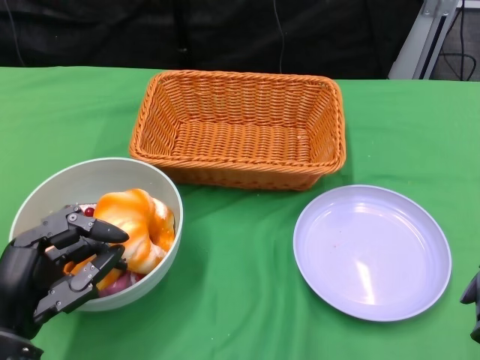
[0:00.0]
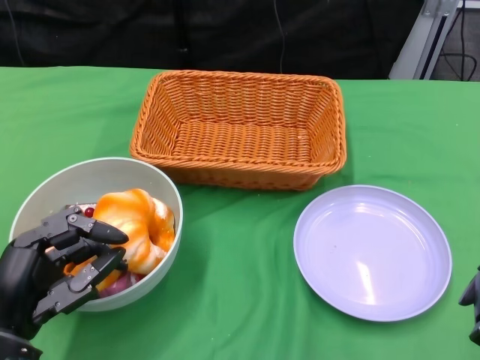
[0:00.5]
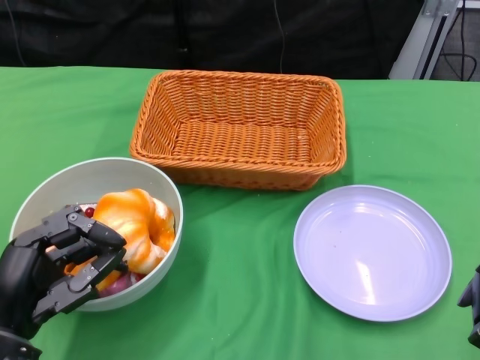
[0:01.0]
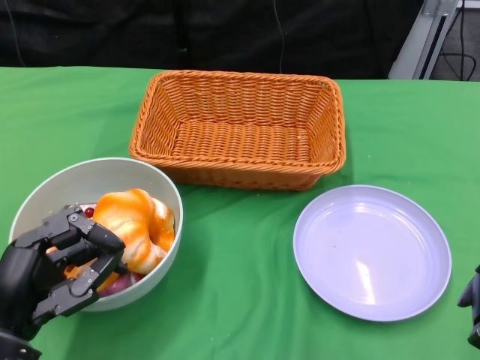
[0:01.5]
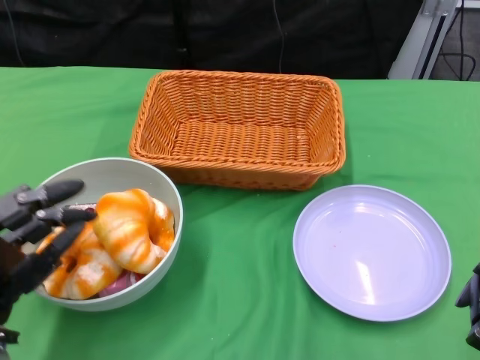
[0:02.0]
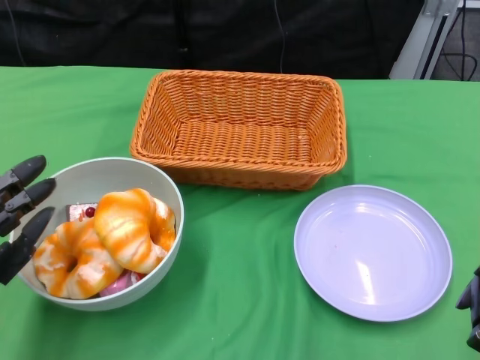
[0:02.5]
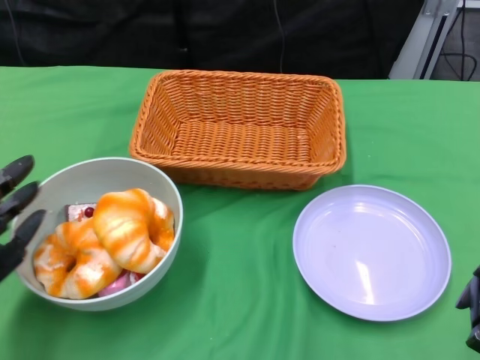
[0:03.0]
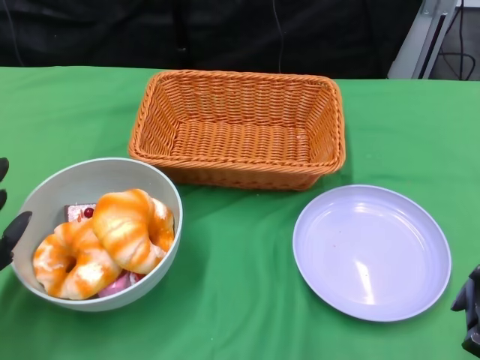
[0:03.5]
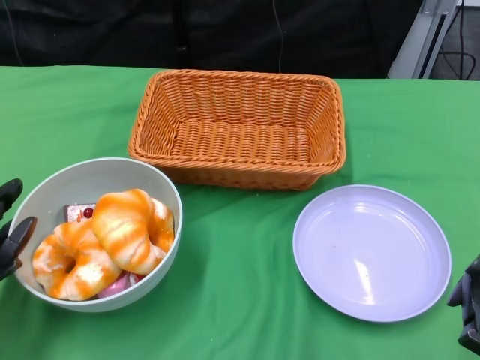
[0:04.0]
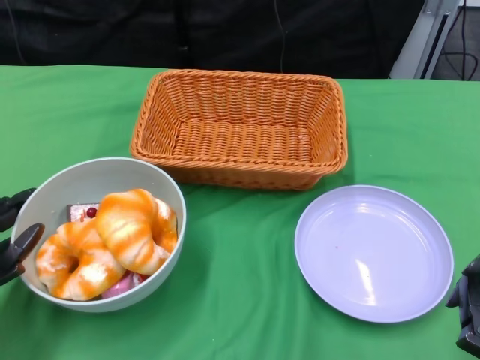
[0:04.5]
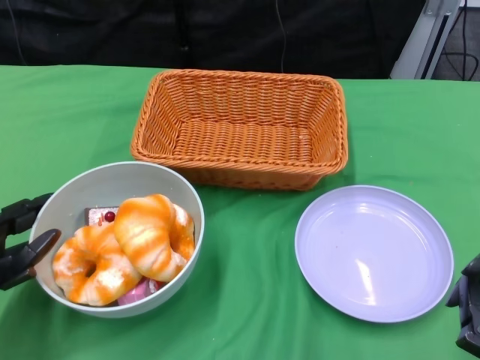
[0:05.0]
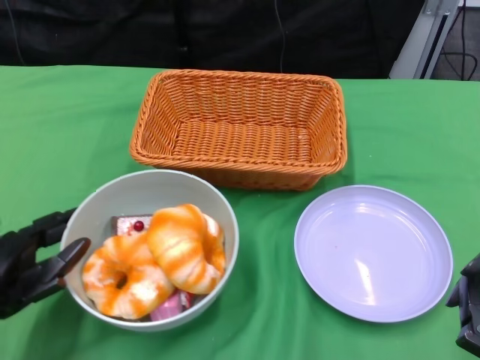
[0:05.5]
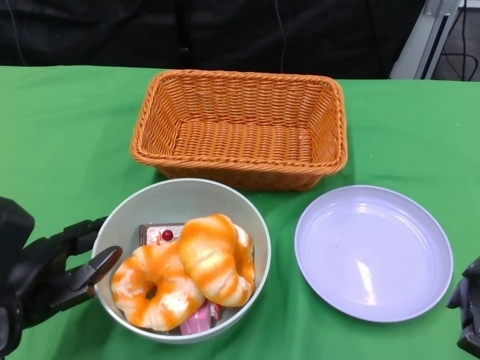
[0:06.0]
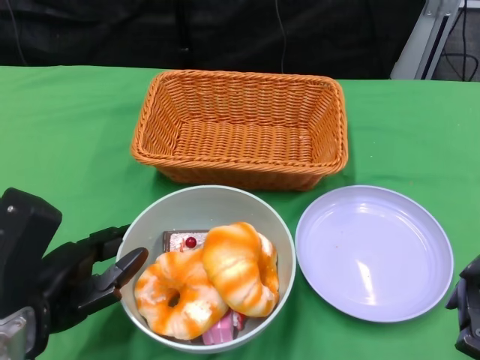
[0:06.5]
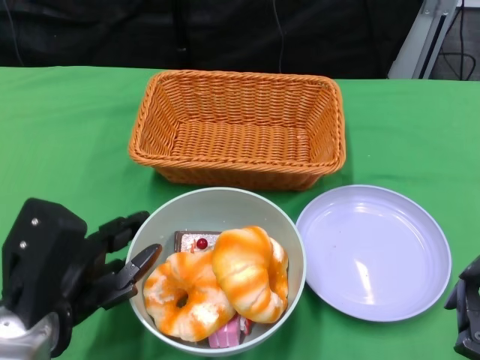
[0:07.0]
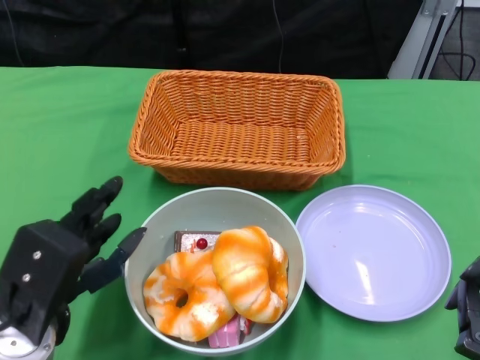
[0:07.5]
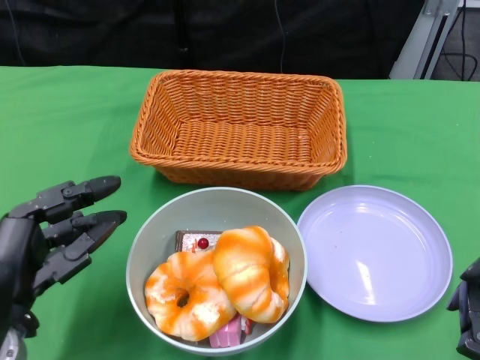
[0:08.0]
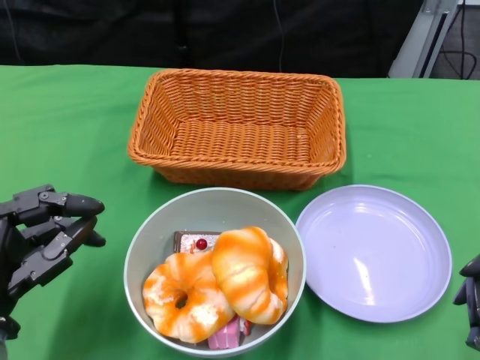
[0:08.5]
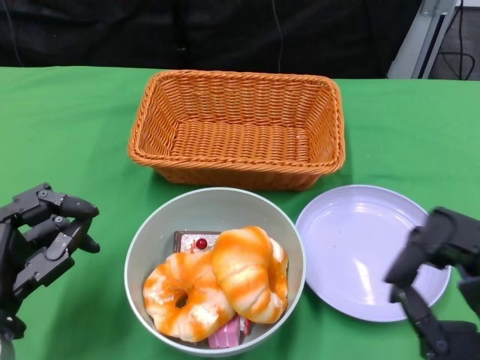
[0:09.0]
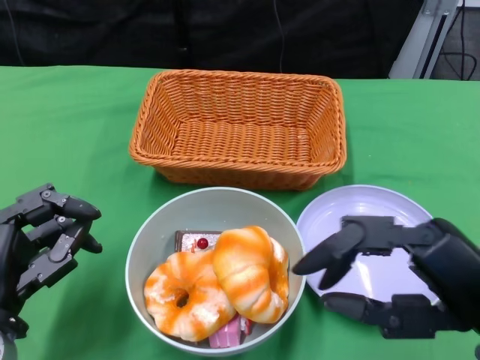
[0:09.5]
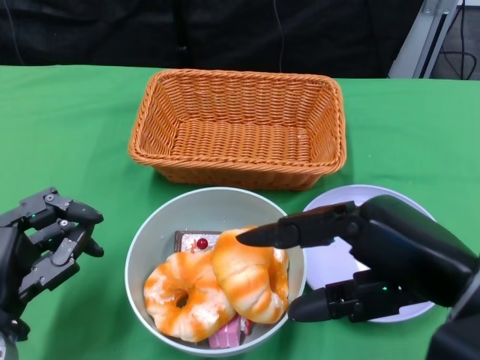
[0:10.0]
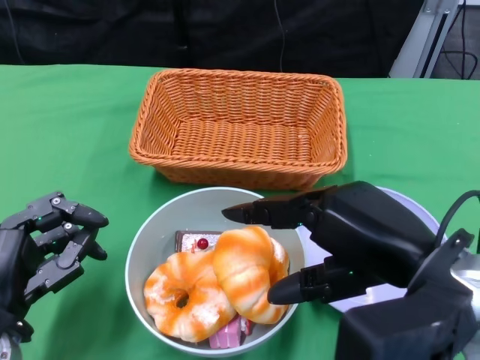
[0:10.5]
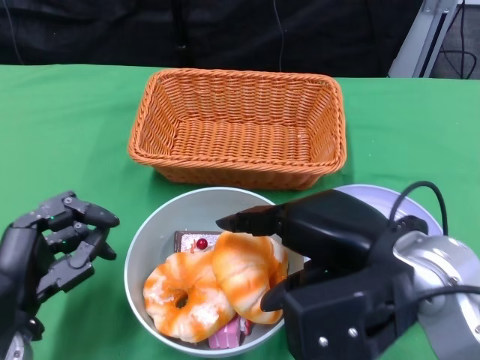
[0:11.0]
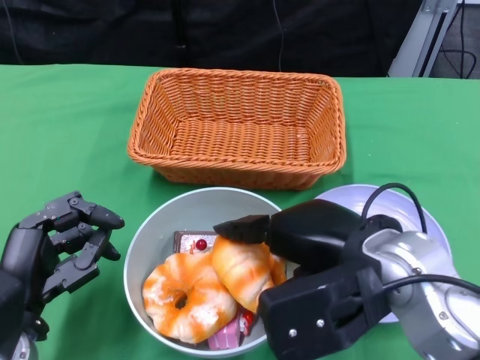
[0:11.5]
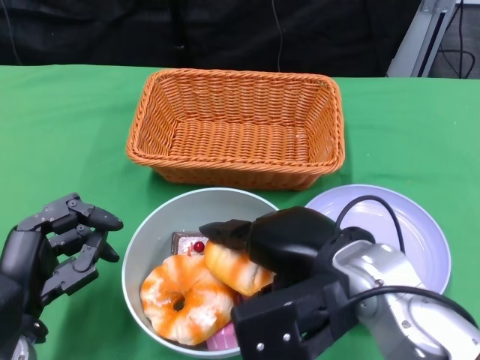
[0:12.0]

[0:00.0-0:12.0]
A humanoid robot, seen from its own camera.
Step, 0:00.0 to 0:07.5: Push the bowl to the center of the table using the left gripper.
0:02.0 to 0:04.0: The left hand shifts some 5 cm to the left.
0:04.0 to 0:06.0: The left hand moves to the right, some 5 cm.
0:08.0 to 0:10.0: The right hand is displaced upward, forward and to the left by approximately 15 cm.
0:10.0 to 0:12.0: The right hand moves to the left and forward, approximately 10 cm.

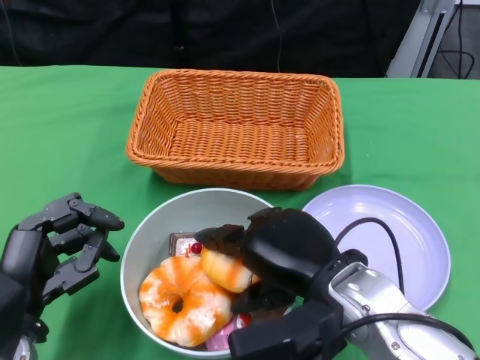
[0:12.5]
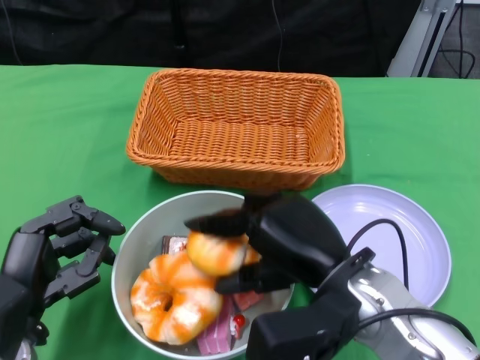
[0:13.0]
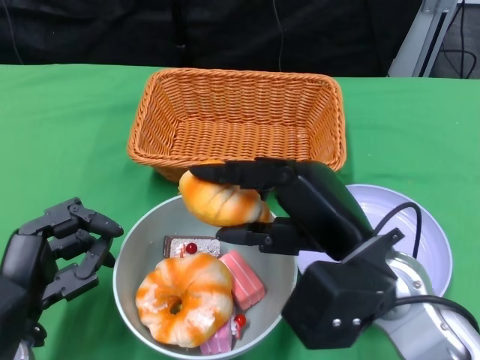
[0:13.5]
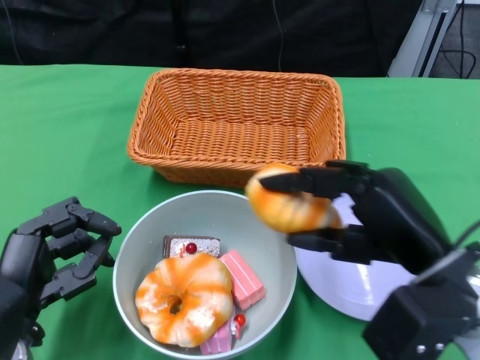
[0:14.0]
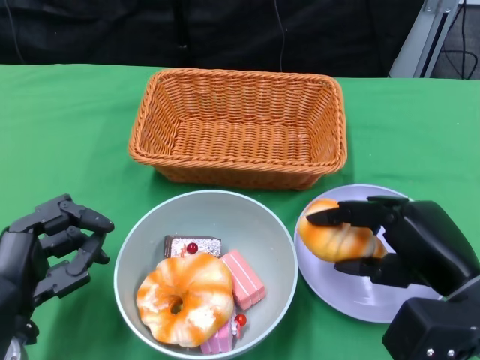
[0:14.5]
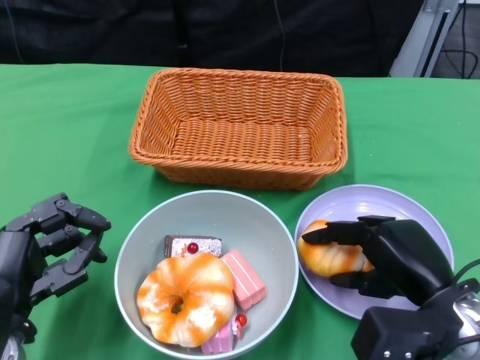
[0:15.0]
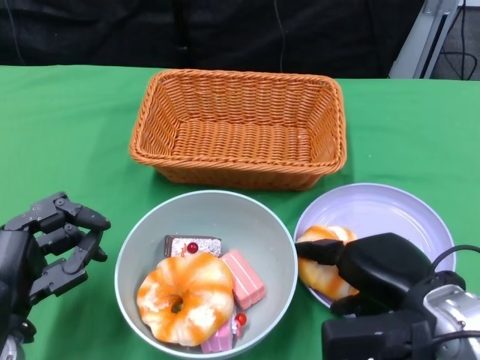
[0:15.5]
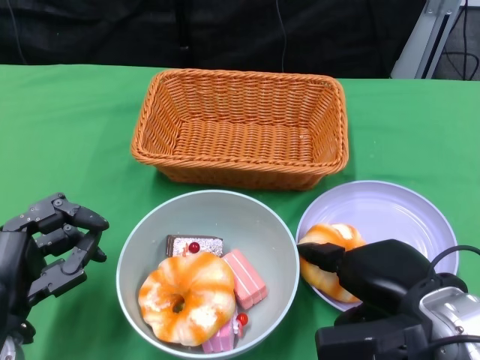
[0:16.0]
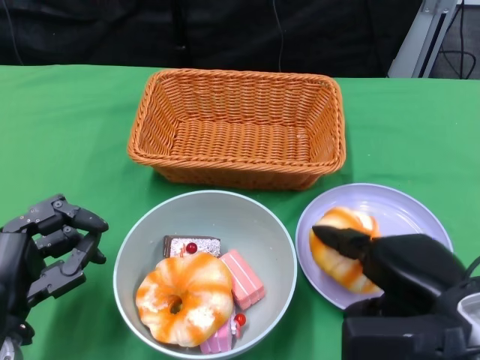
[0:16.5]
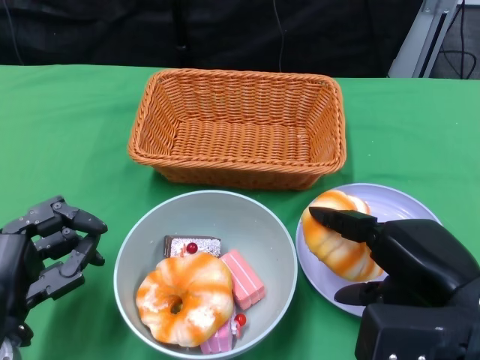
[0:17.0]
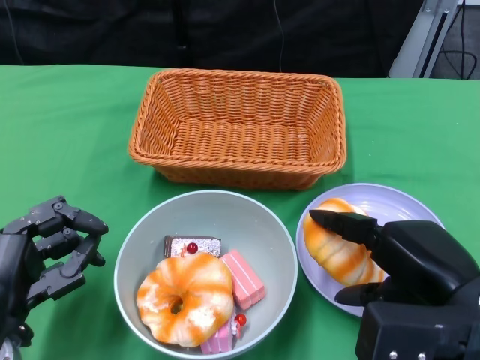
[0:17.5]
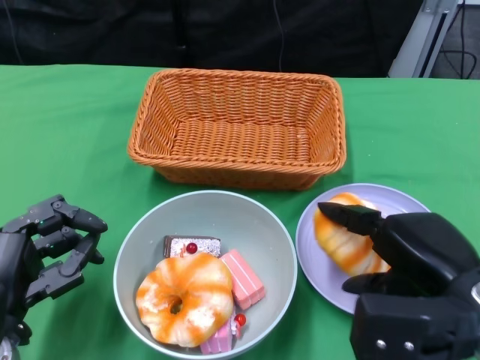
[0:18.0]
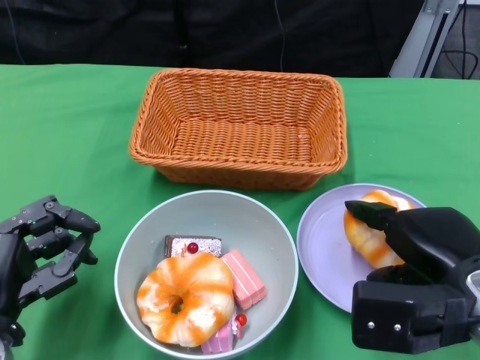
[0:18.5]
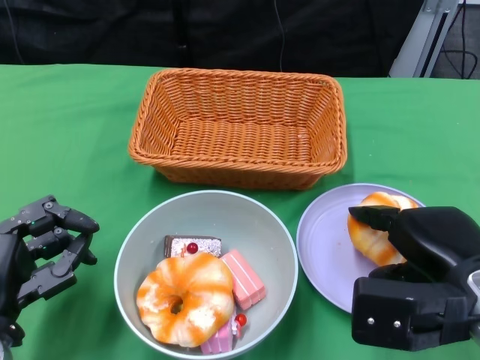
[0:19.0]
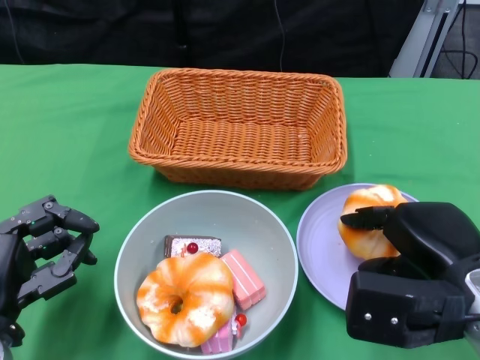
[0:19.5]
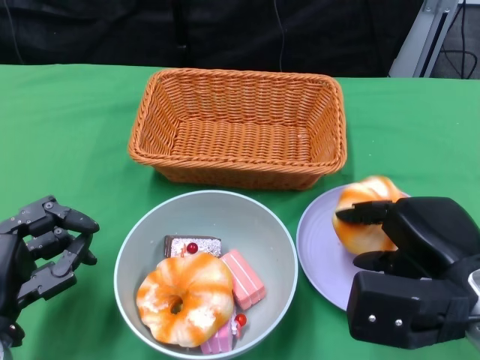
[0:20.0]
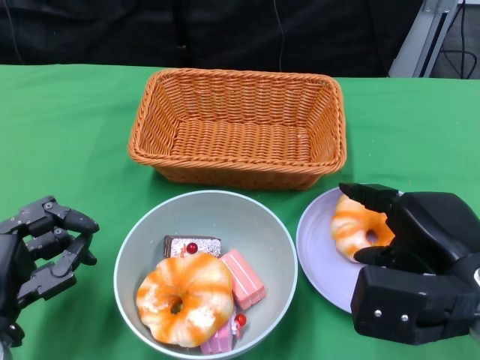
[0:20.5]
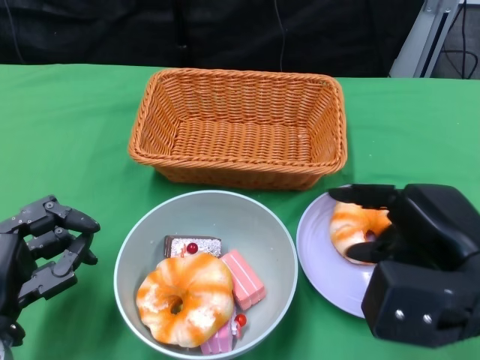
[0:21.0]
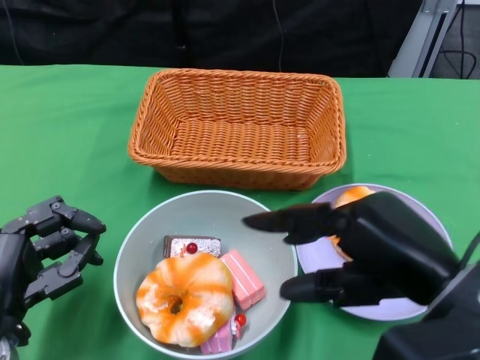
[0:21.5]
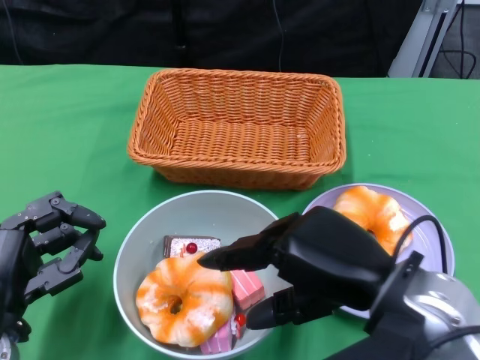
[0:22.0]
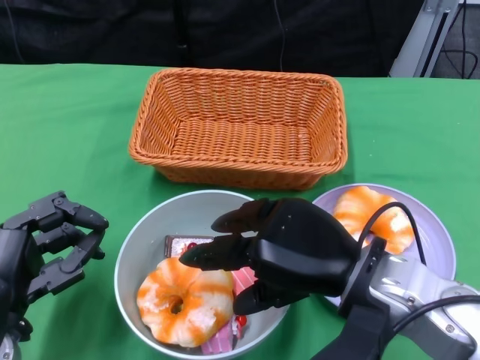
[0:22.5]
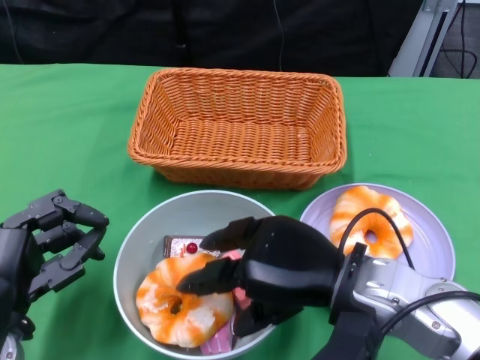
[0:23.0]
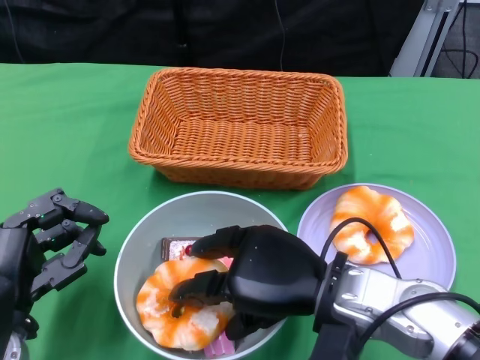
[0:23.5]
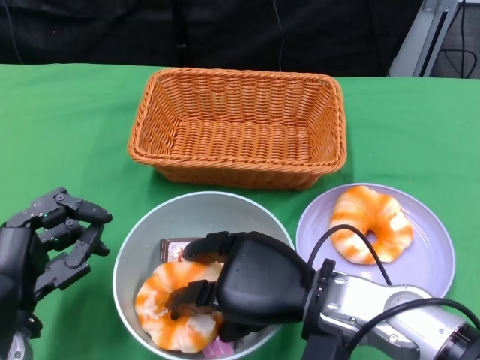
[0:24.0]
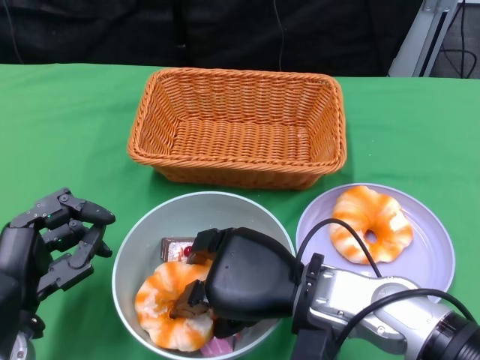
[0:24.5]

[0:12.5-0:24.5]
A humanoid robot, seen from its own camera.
Step, 0:12.5 to 0:21.0: Pick up the bread with the right gripper and place it on the plate.
0:12.5 to 0:14.5: The right hand heads to the right, covering roughly 10 cm.
0:16.5 to 0:20.5: There are only small adjustments of the hands.
0:20.5 to 0:22.5: The right hand travels to the left by some 10 cm.
0:22.5 to 0:24.5: The right hand shifts by roughly 5 cm.

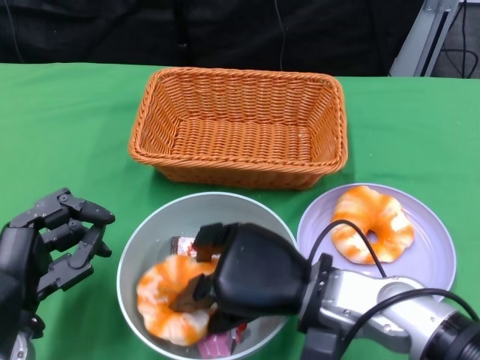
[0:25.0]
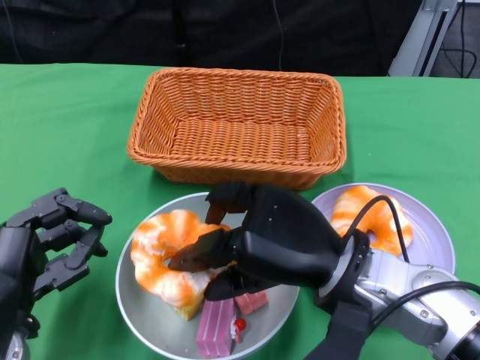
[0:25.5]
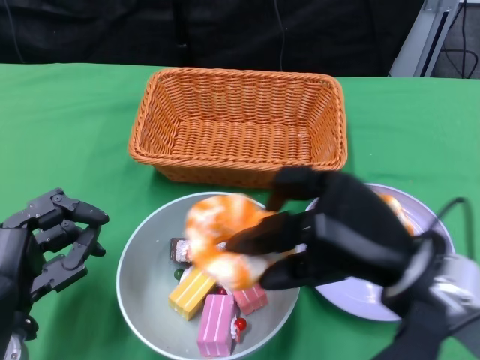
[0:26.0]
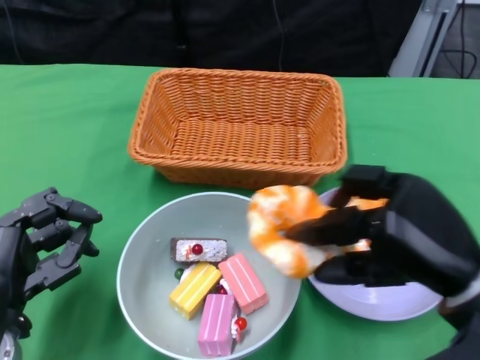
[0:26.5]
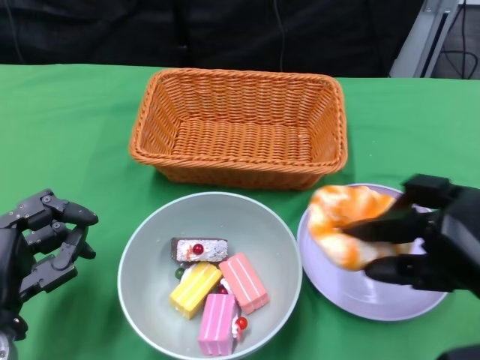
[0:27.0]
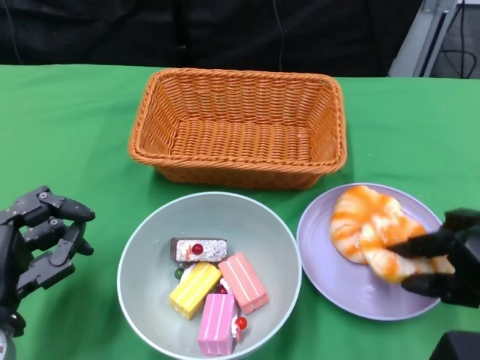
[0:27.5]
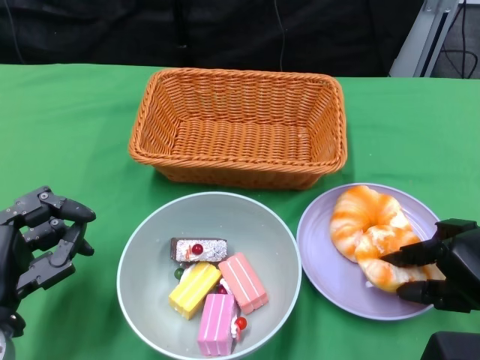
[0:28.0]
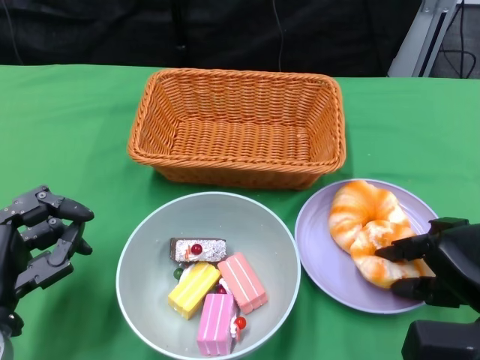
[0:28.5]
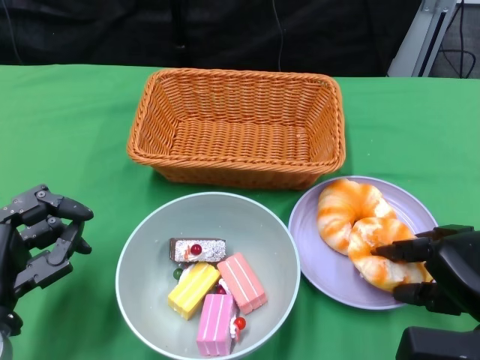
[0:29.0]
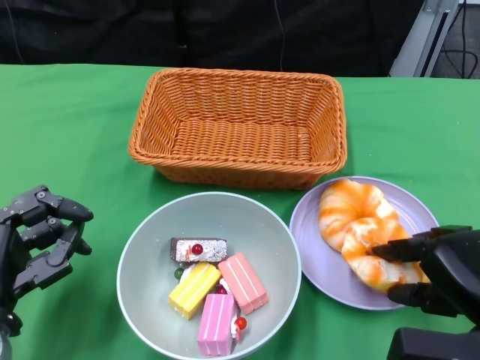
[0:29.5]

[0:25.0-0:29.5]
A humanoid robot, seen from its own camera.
0:25.0 to 0:27.0: The right hand travels to the right by some 15 cm.
